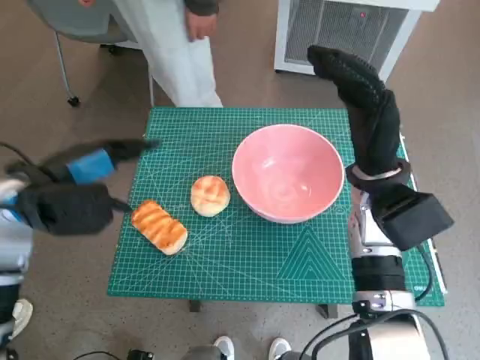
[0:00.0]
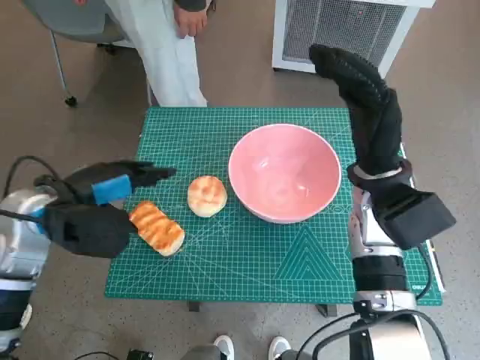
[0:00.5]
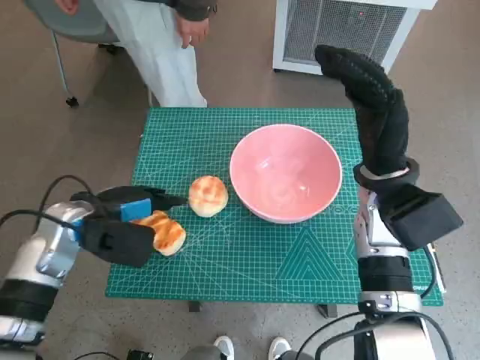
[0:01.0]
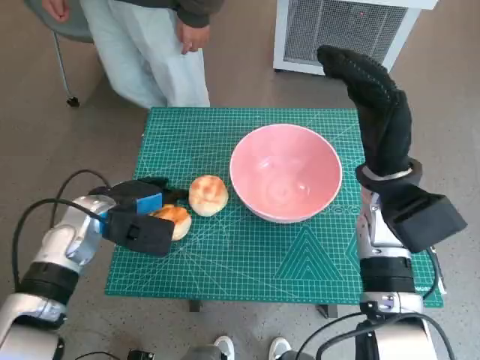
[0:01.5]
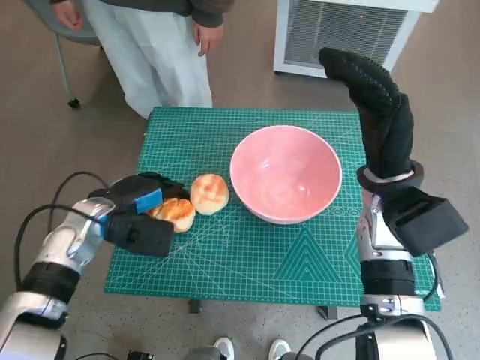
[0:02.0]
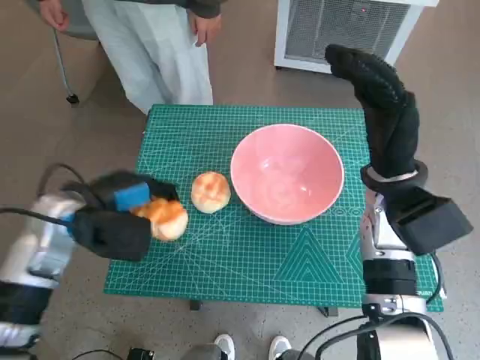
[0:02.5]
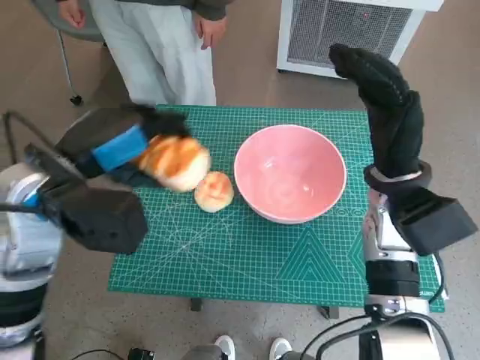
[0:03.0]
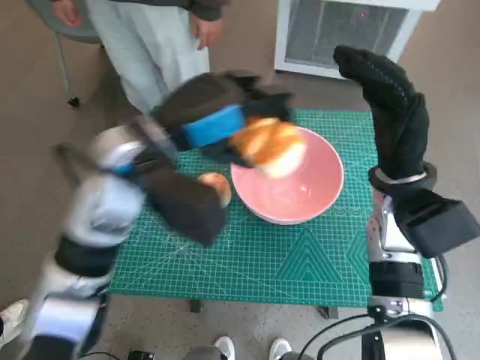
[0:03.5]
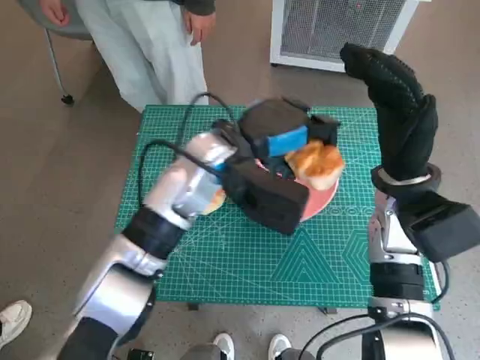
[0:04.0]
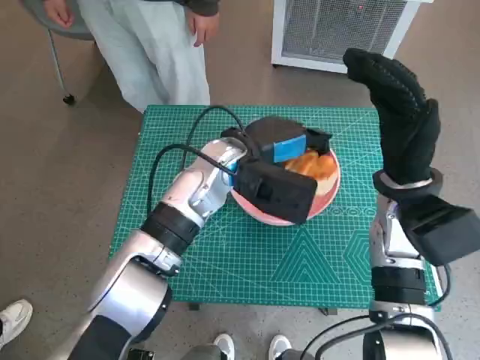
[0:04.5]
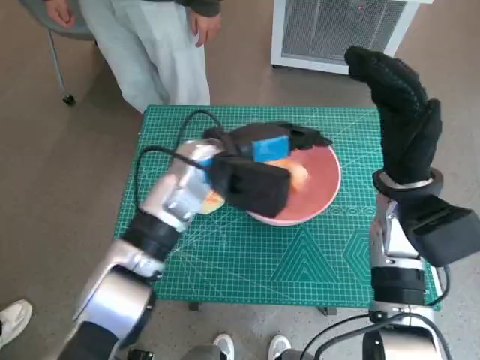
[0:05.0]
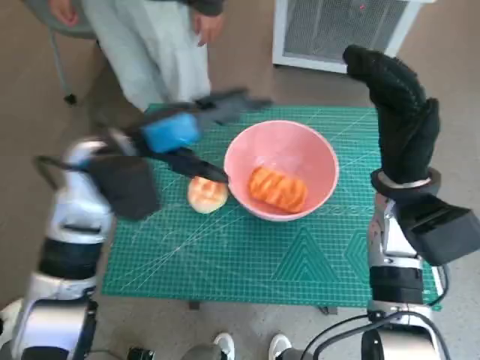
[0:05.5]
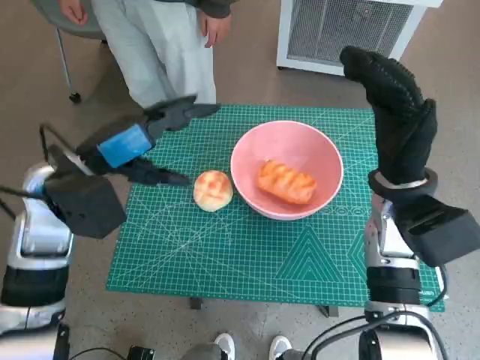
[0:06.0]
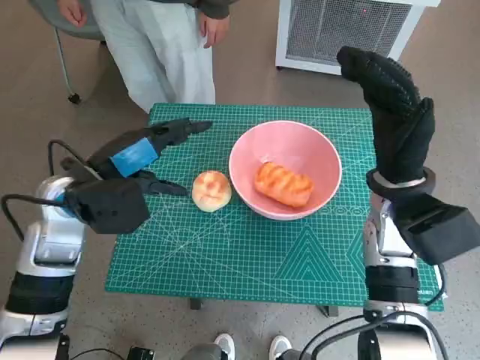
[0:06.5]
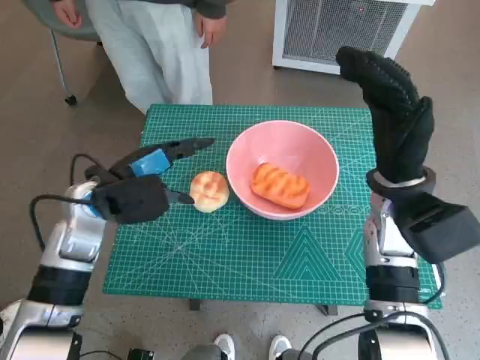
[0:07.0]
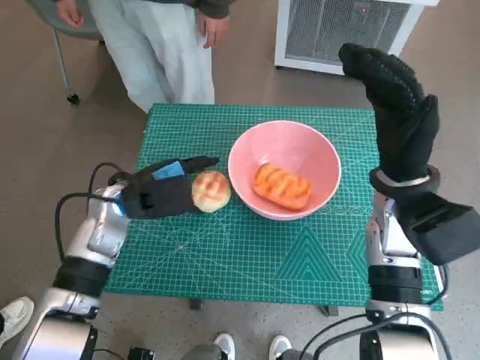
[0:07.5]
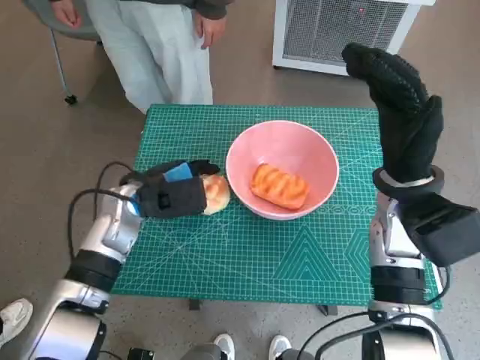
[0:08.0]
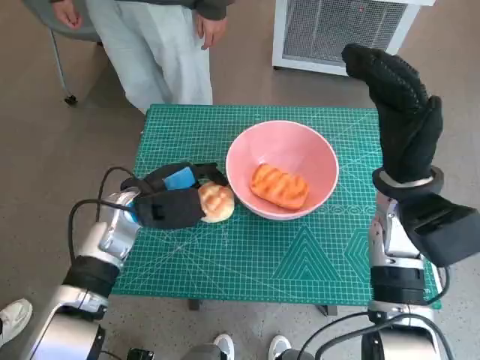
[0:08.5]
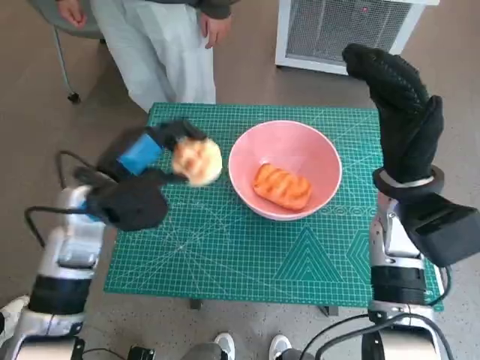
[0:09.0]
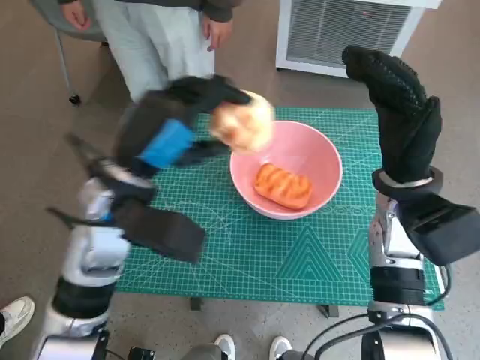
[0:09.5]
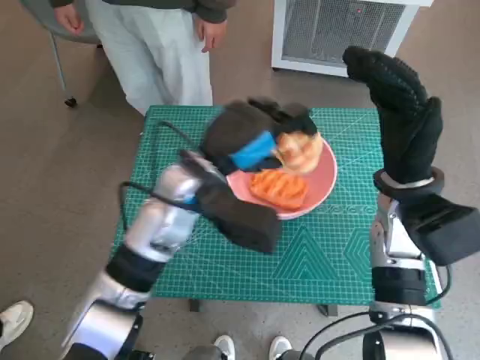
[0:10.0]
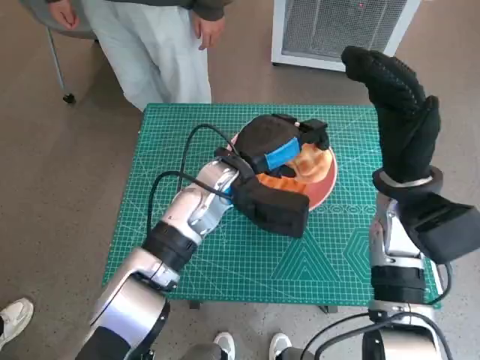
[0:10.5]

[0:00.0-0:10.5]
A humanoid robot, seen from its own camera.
Task of the whole recording: Push the bowl to the center of the table and put the bread into the bowl.
Step, 0:01.5 to 0:05.0: Place the long bread in pink bowl with left hand.
Step, 0:05.5 to 0:08.0: Grasp the round bread with left hand.
0:00.0 to 0:02.0: The left hand travels downward by some 10 cm.
0:02.0 to 0:04.0: The left hand goes about 20 cm to the right and upward.
0:04.0 to 0:06.5: The left hand is displaced to the left by roughly 15 cm.
0:06.5 to 0:08.5: The left hand travels downward by approximately 10 cm.
0:08.5 to 0:10.5: The left hand travels to the right by approximately 15 cm.

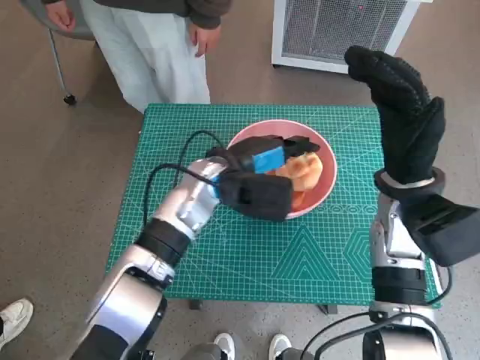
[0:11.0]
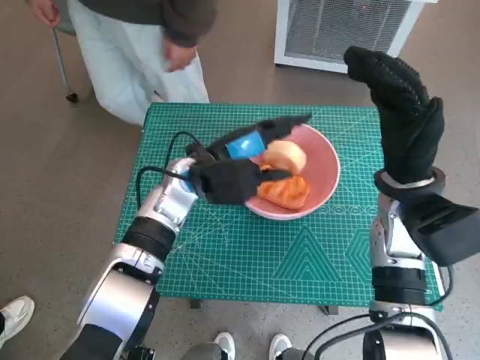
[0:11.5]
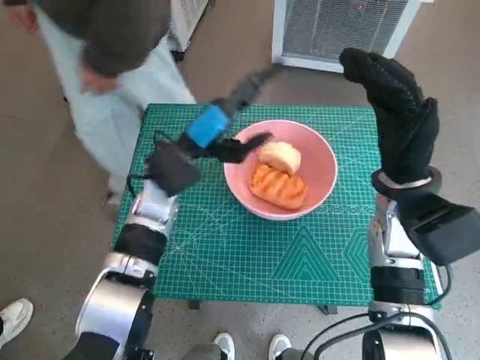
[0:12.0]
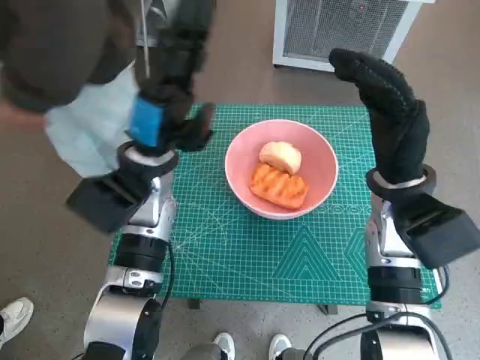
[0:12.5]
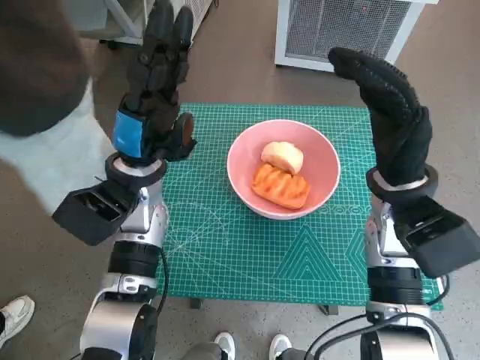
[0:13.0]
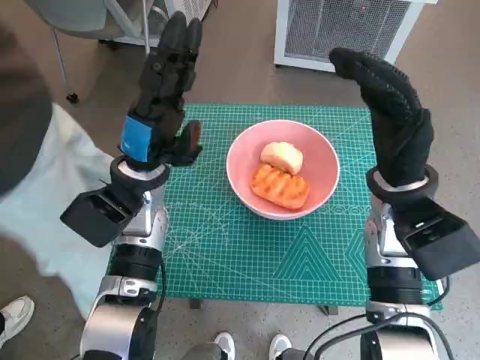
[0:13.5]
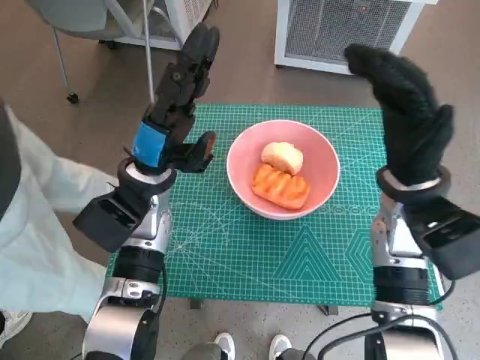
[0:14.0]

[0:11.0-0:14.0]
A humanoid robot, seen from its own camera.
Task of the whole recording: Push the bowl to the center of the table and put the bread into the bowl.
0:11.0 to 0:12.5: The left hand travels to the left by roughly 10 cm.

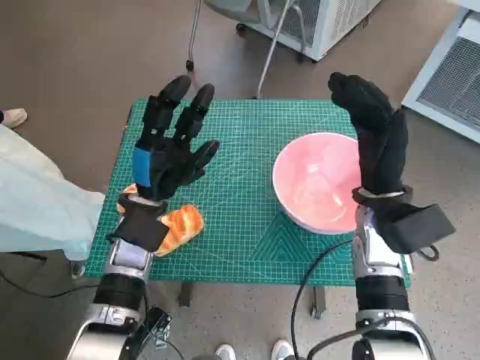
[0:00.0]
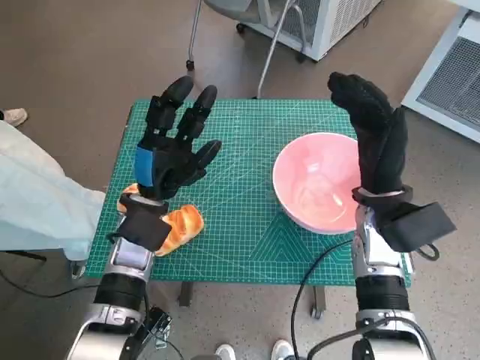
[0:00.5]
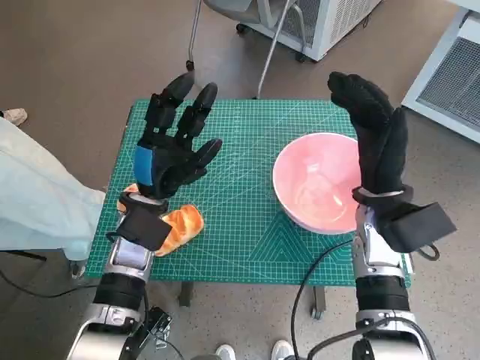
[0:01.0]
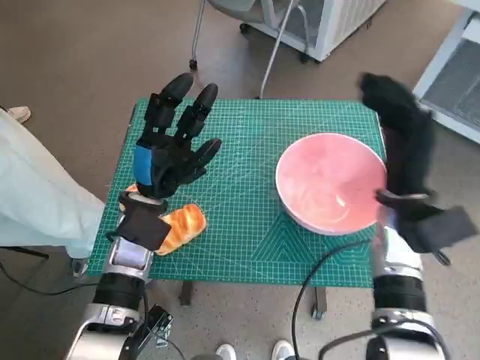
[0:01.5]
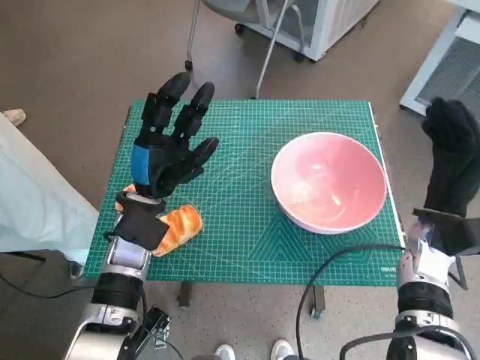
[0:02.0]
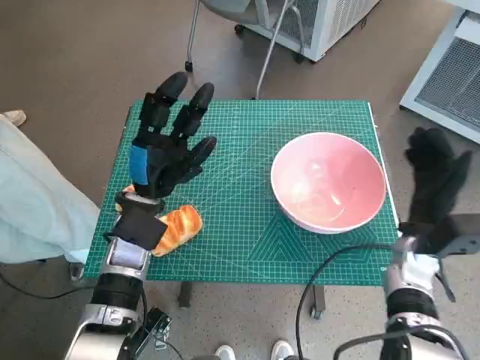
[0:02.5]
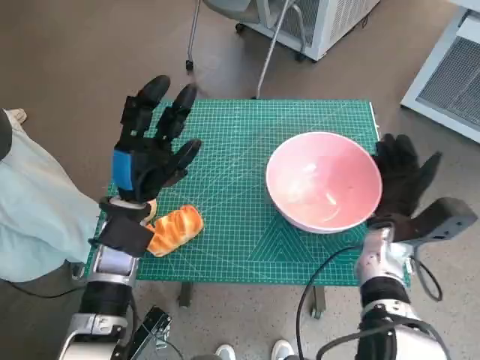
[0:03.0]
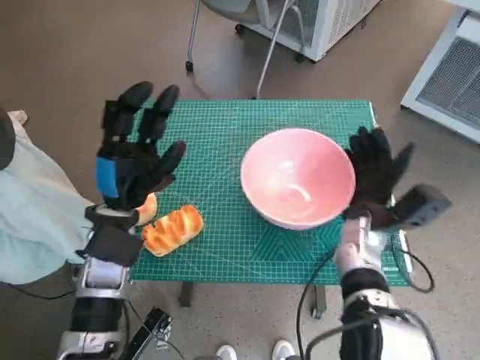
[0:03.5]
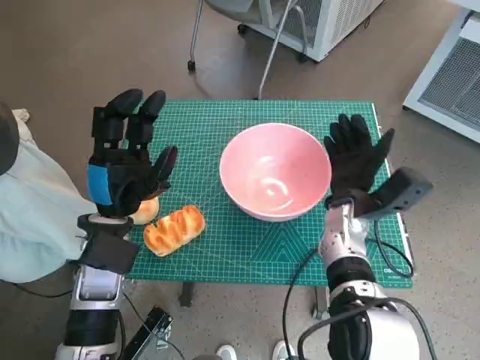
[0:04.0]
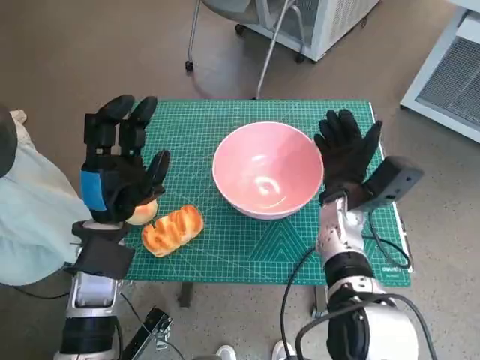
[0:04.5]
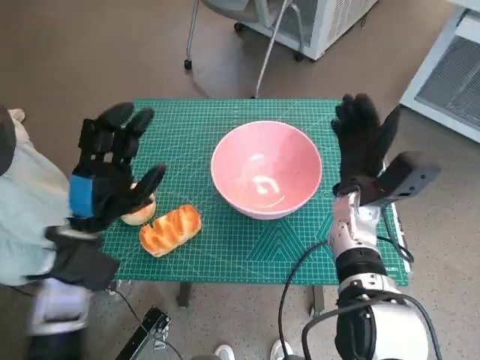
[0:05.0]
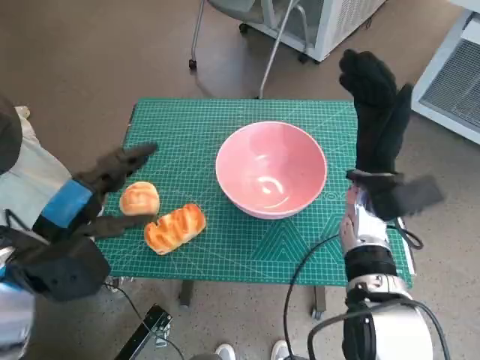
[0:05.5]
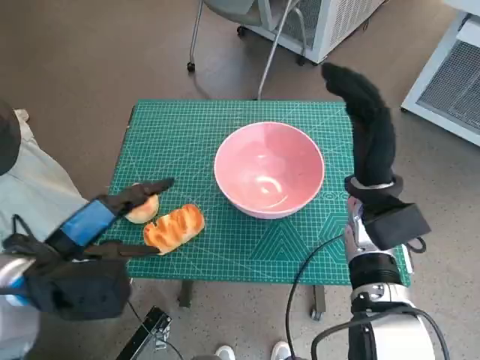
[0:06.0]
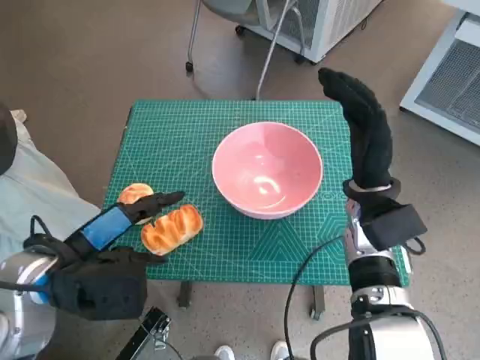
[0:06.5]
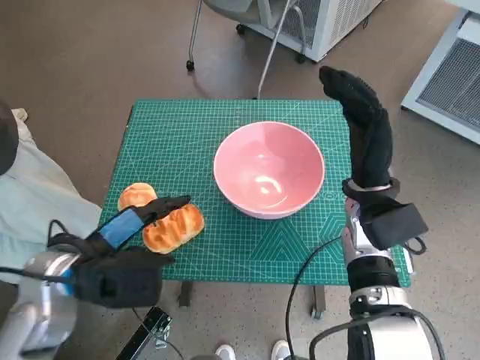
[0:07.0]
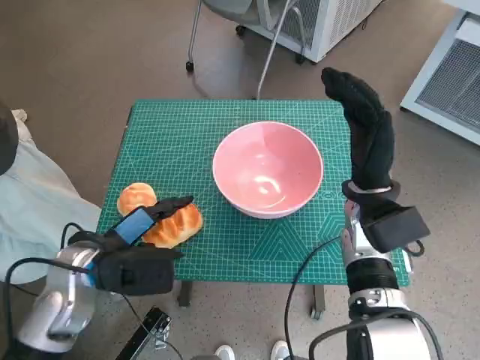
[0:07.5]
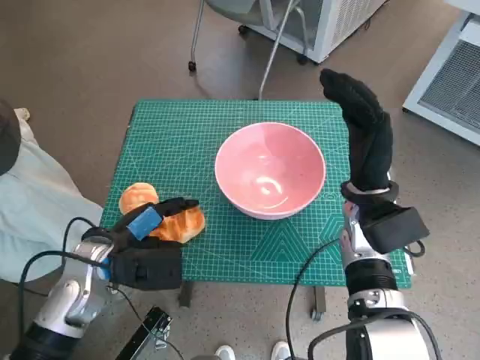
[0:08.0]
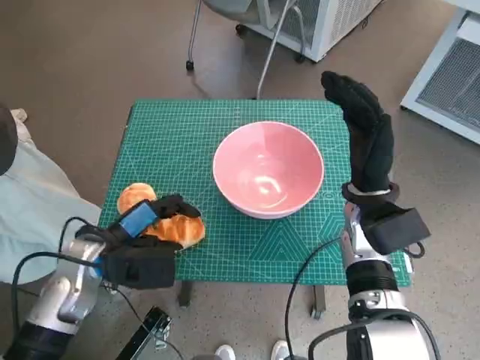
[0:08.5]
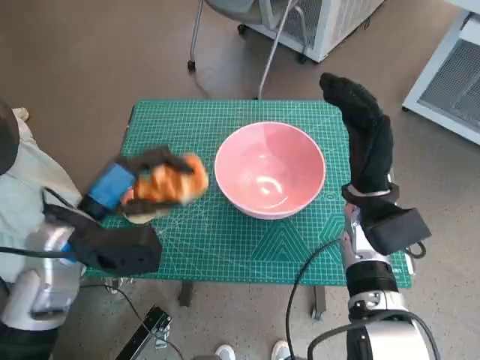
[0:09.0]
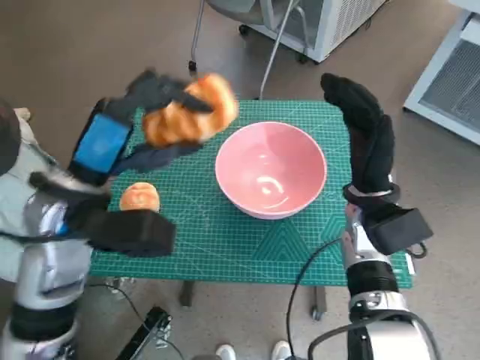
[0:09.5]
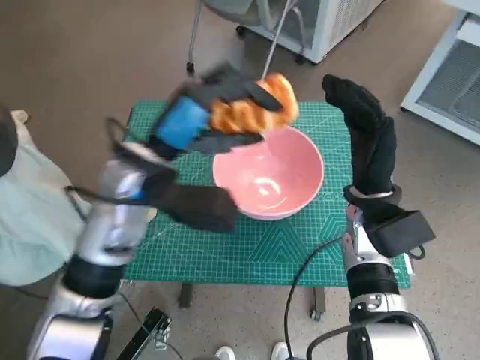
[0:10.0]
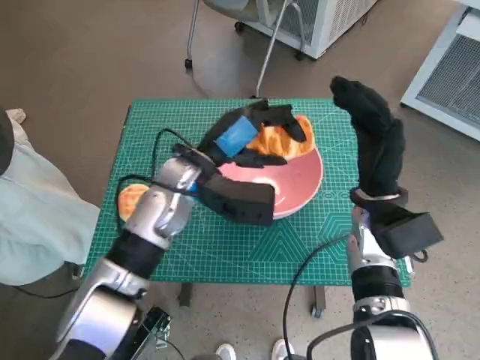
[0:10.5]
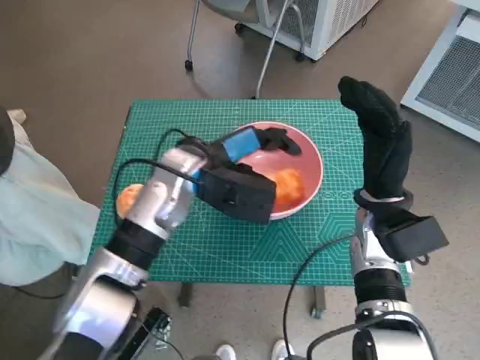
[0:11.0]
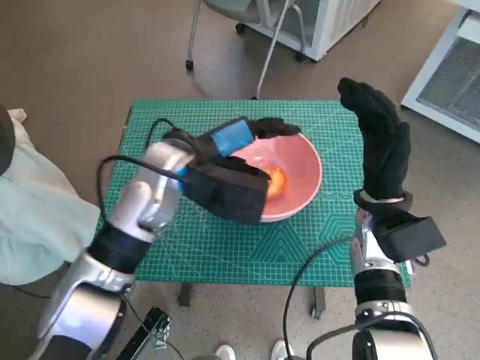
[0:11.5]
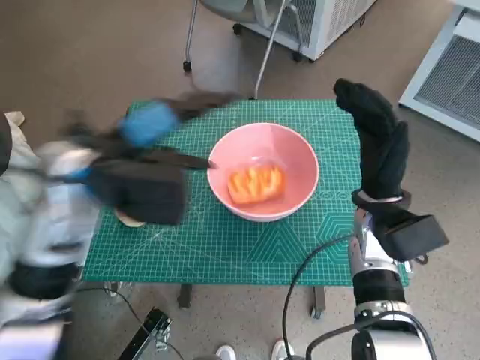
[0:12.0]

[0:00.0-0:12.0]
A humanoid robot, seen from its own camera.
Task of the whole recording: Push the bowl to the center of the table and put the bread into the bowl.
Step, 0:00.0 to 0:04.5: Move the pink bowl to the center of table with right hand.
Step, 0:05.0 to 0:07.5: Grasp the long bread with left hand.
Step, 0:08.0 to 0:11.5: Place the long bread in pink bowl with left hand.
0:02.0 to 0:04.0: The right hand heads to the left, covering approximately 10 cm. Meanwhile the left hand ends up approximately 5 cm from where it was.
0:04.0 to 0:06.0: The right hand moves upward, some 5 cm, while the left hand moves backward and upward, about 10 cm.
0:06.0 to 0:08.0: The left hand moves downward and forward, roughly 10 cm.
0:08.0 to 0:10.0: The left hand goes about 15 cm upward, to the right and forward.
